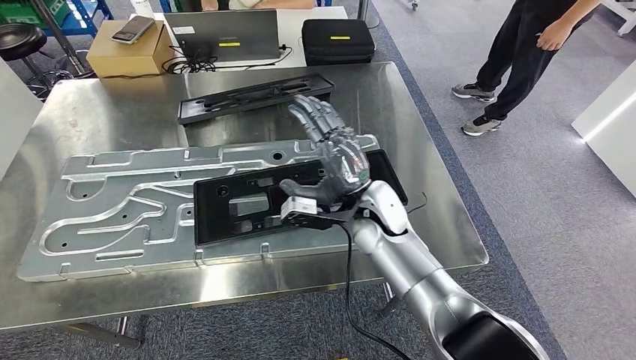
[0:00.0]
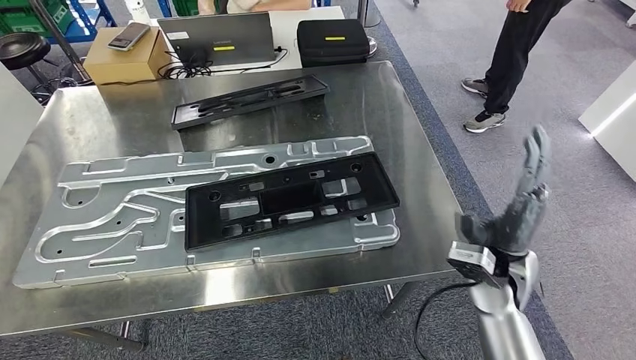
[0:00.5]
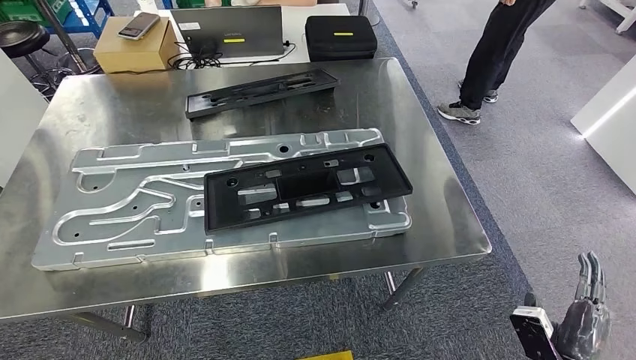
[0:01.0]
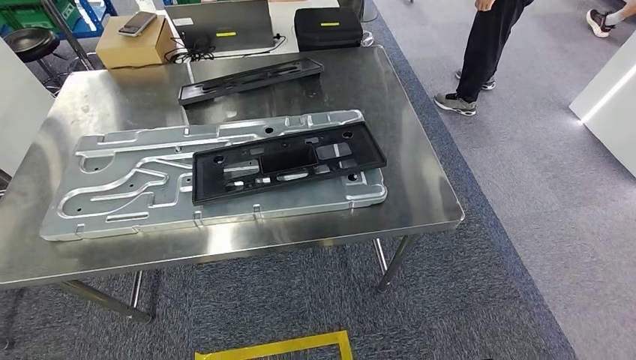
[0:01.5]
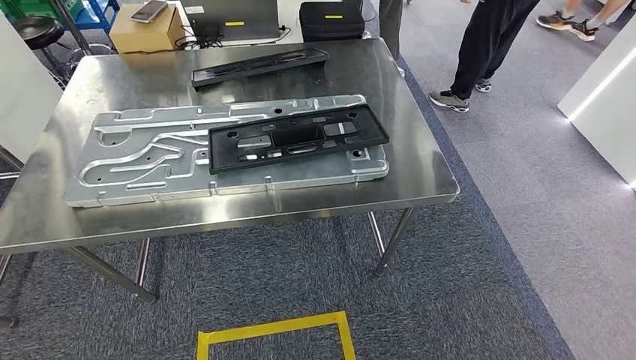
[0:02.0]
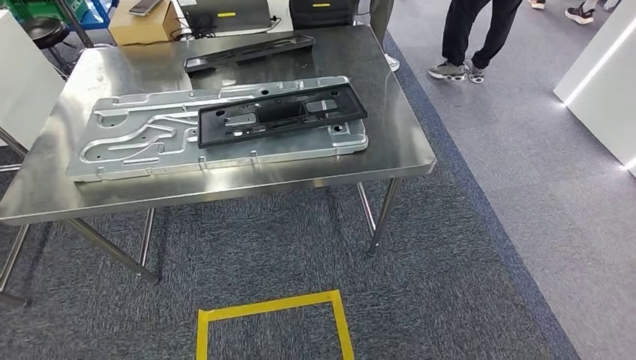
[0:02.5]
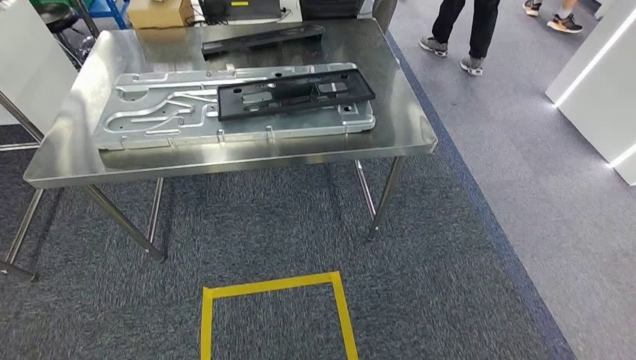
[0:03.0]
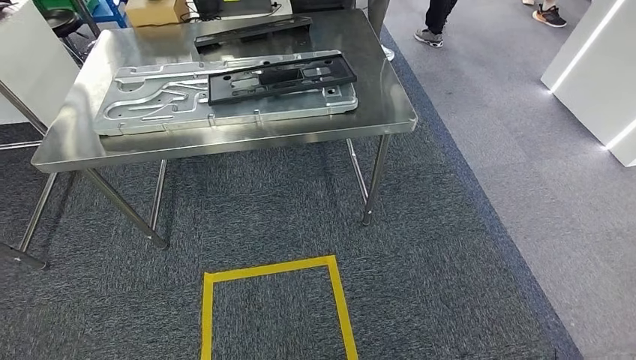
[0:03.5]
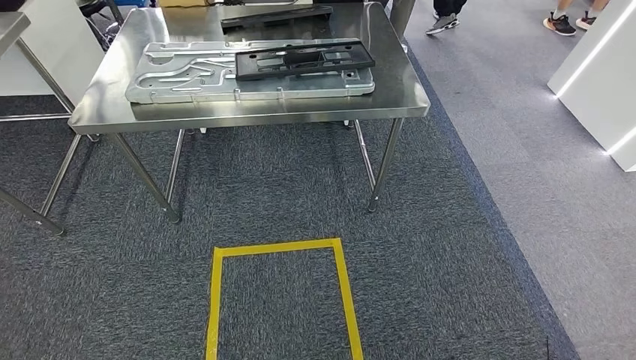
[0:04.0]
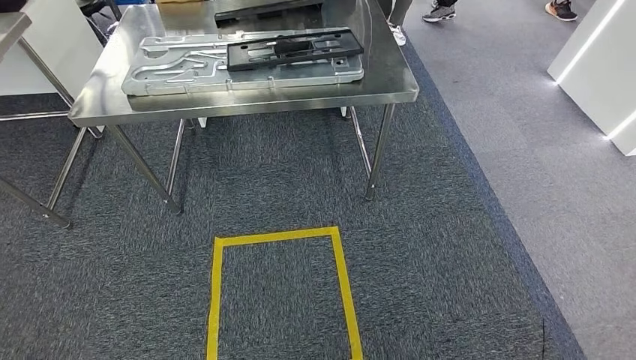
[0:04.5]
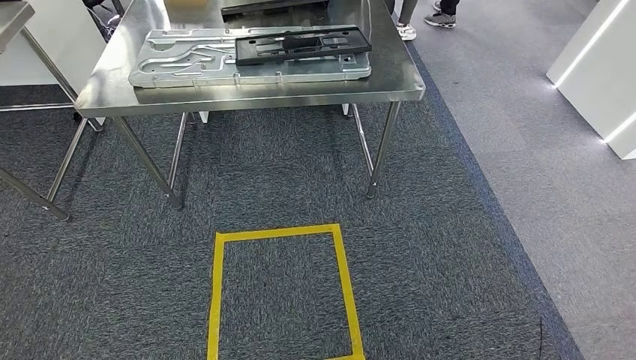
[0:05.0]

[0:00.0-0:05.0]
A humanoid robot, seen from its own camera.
Step, 0:01.5 to 0:05.0: Move to the initial position of the shelf.
